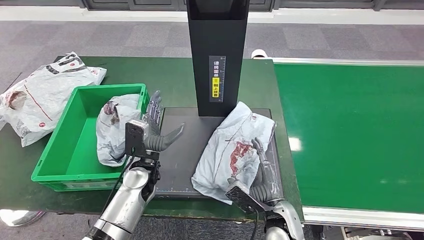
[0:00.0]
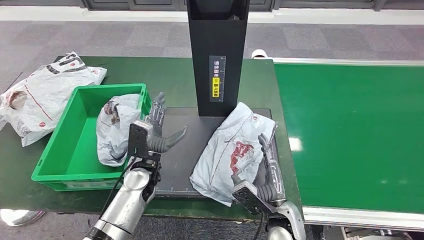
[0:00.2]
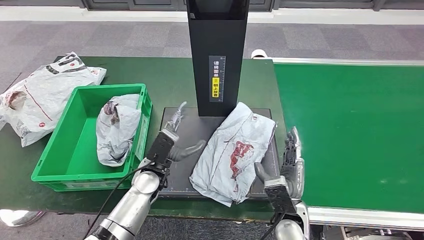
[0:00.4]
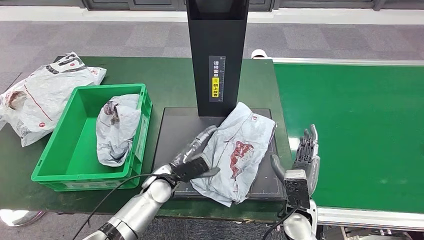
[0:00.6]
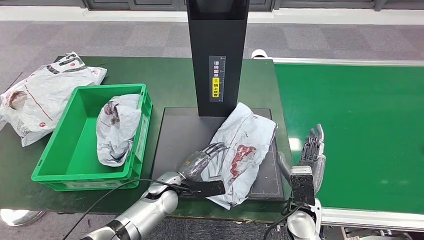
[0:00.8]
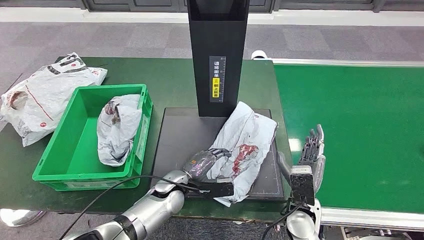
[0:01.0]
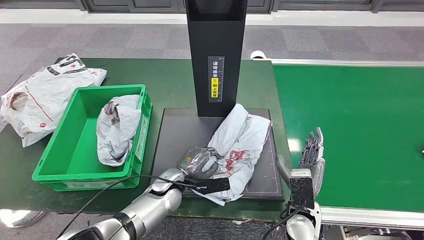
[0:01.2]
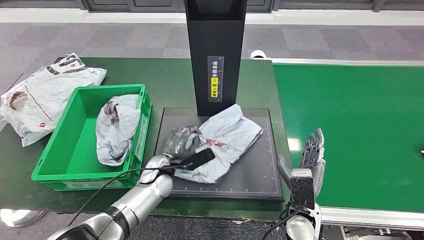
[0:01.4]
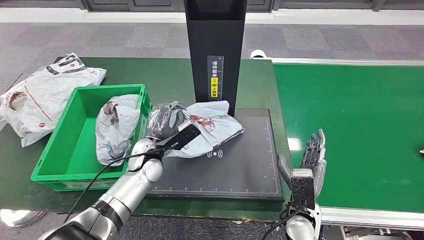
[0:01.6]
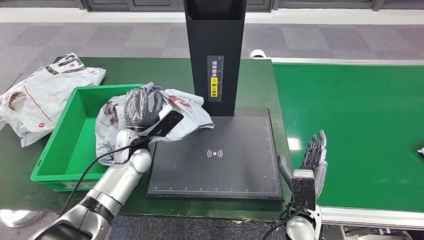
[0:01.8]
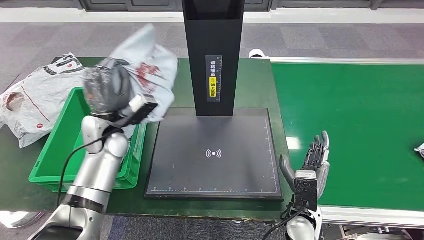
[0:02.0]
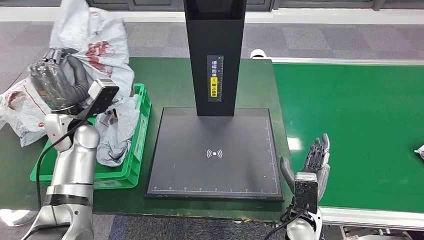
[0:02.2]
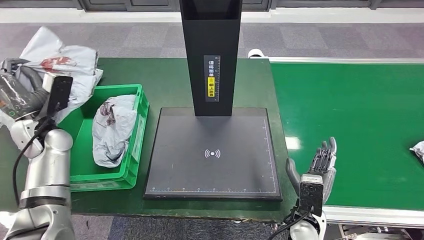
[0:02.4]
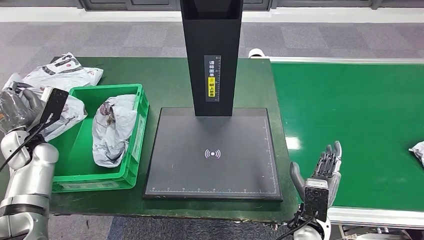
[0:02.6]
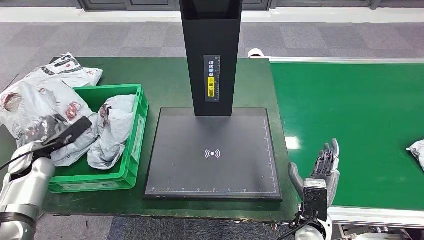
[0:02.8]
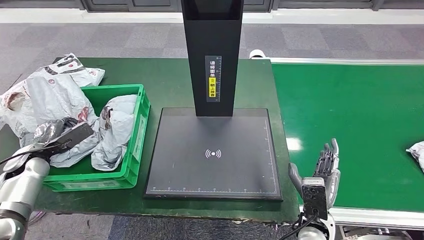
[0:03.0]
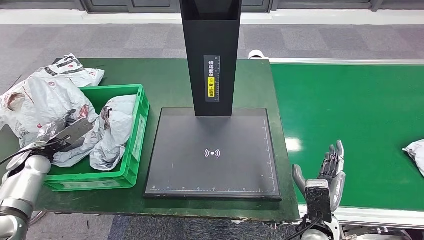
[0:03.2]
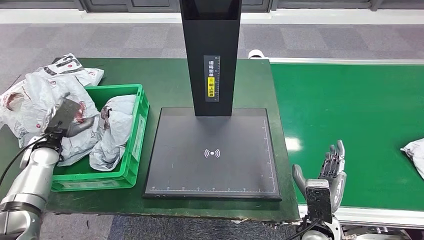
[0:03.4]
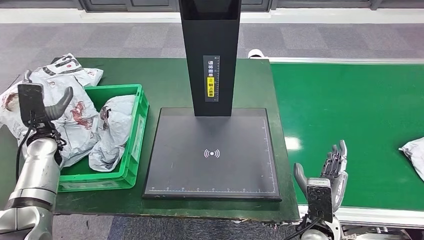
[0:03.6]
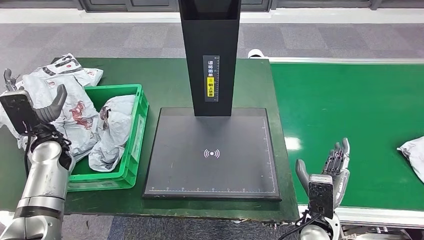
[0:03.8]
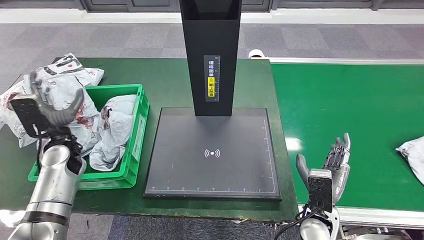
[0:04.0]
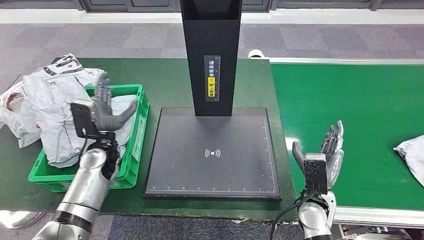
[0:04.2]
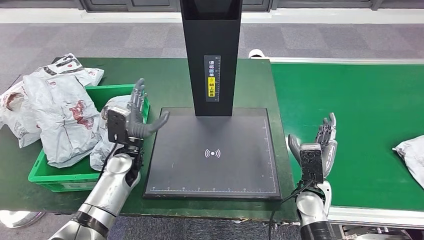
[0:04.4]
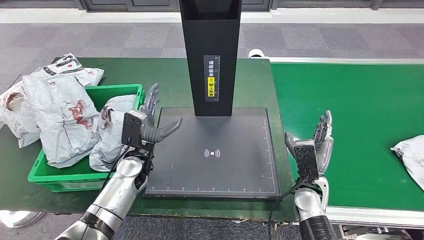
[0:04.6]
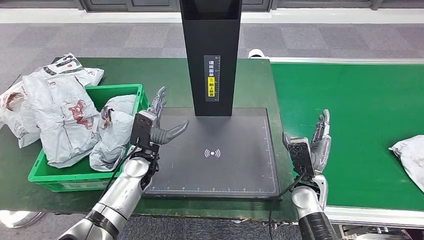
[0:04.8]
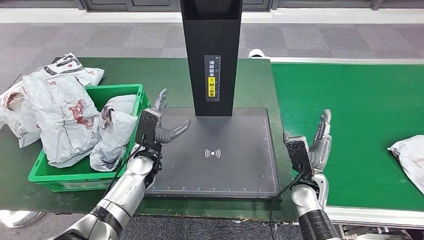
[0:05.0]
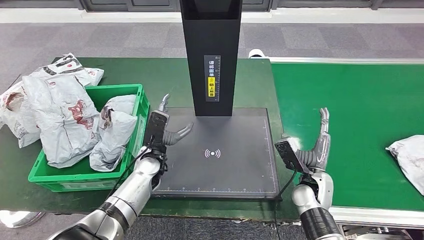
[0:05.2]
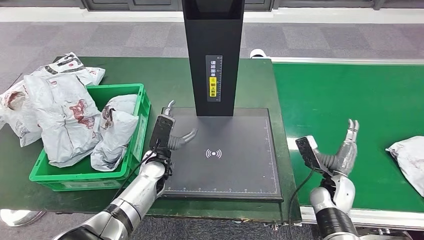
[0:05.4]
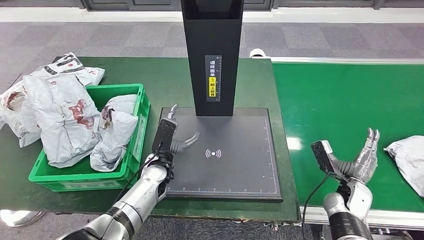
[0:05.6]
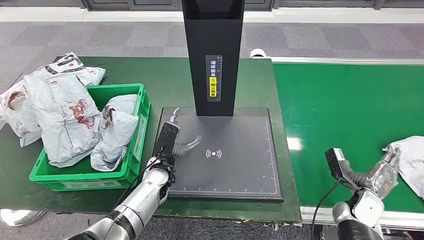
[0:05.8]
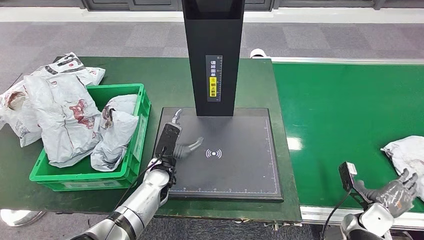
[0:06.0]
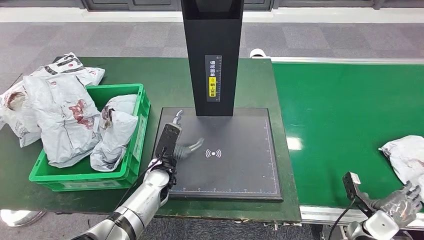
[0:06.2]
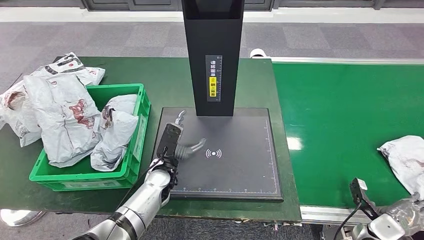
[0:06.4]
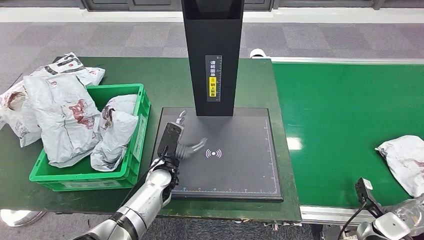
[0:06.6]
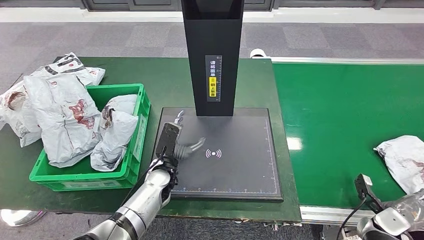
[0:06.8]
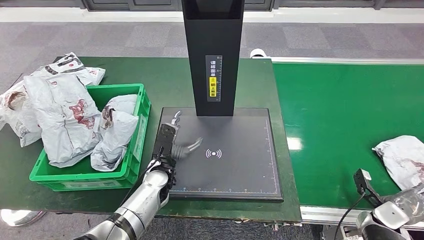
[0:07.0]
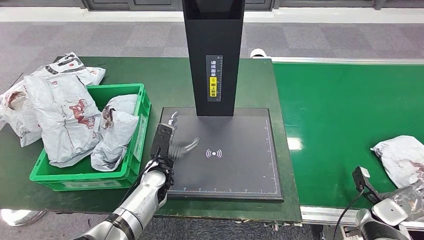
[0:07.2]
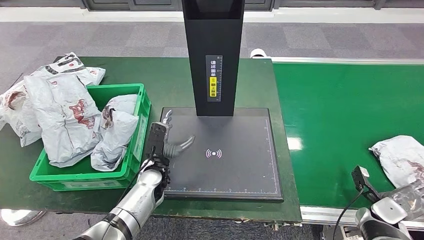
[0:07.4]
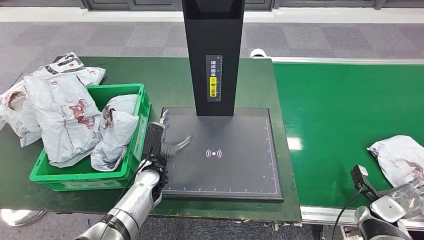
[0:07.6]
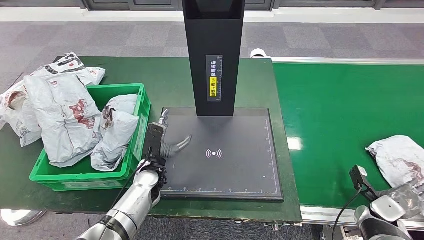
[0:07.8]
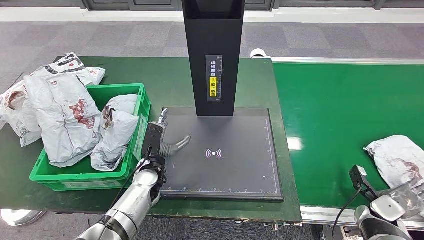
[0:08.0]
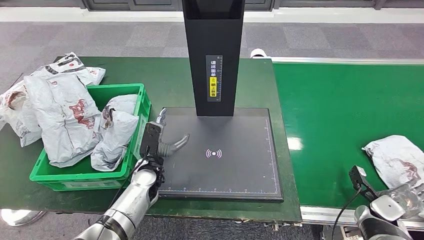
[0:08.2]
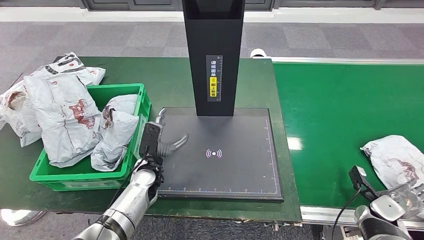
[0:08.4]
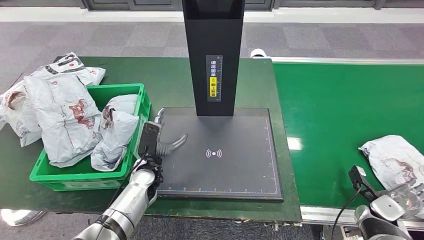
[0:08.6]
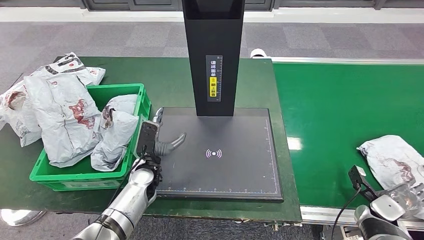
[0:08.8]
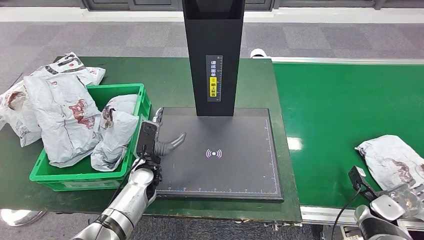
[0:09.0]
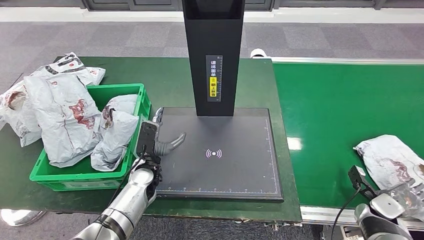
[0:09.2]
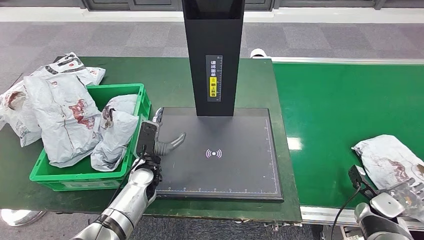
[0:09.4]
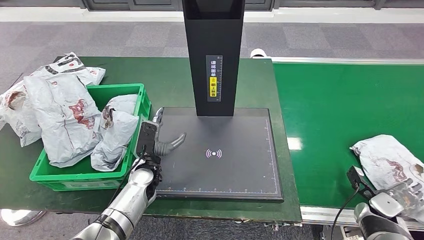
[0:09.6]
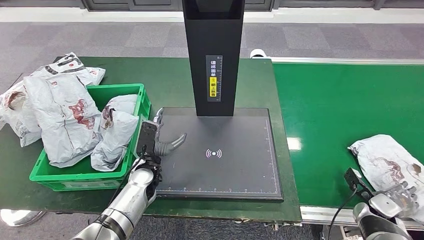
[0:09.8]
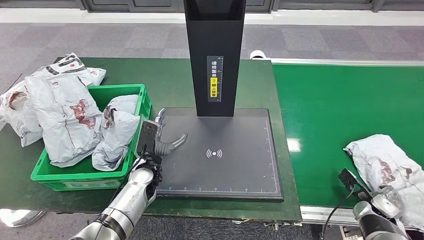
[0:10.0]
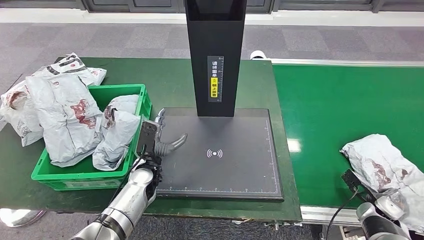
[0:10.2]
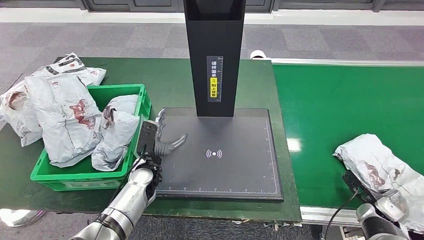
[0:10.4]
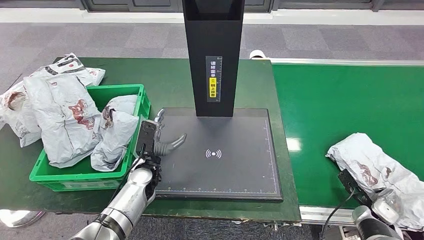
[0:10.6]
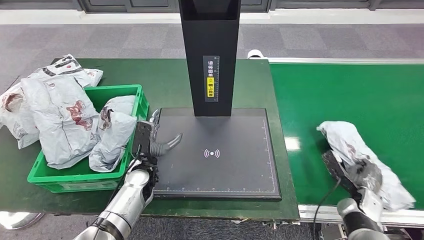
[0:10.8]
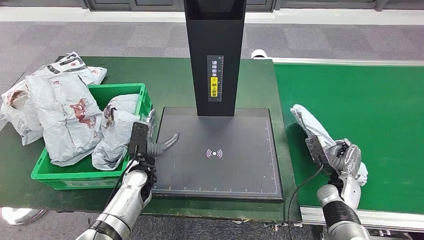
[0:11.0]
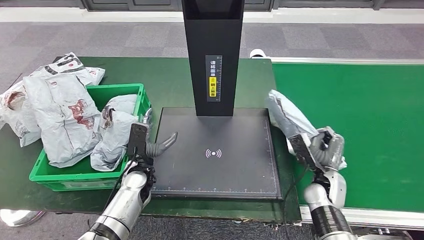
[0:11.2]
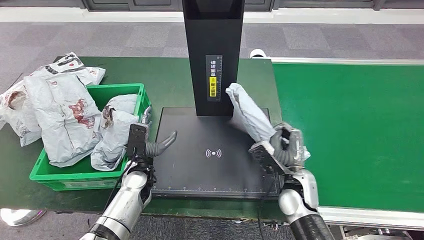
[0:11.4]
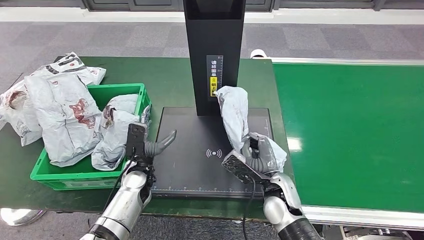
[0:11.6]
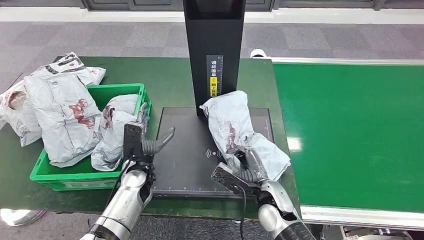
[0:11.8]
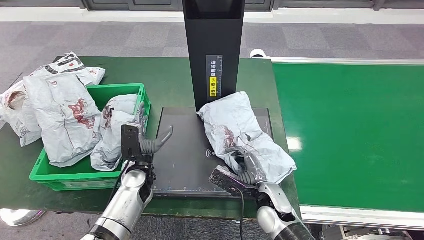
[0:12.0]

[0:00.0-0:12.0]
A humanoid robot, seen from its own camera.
Step, 0:01.0 to 0:01.8: Pick up the parcel from the inbound machine.
Step, 0:02.0 to 0:04.0: Place the parcel into the delivery box.
Step, 0:04.2 to 0:11.2: Pick up the parcel from the conveyor belt.
0:03.0 to 0:04.4: The right hand moves forward, some 10 cm; the left hand moves to the right, some 30 cm.
0:07.6 to 0:09.0: There are only small adjustments of the hands.

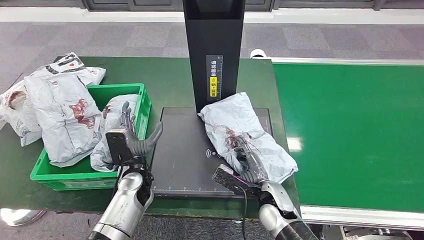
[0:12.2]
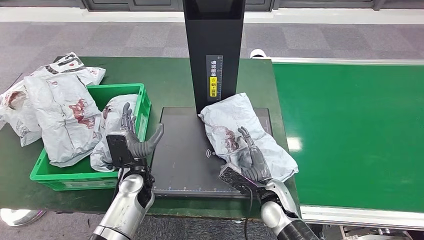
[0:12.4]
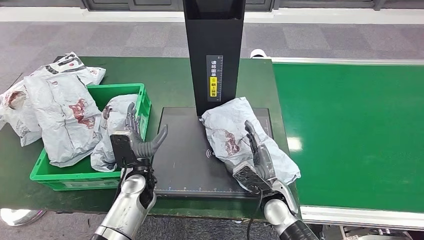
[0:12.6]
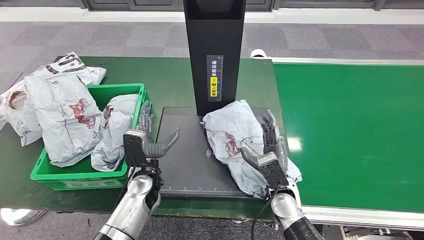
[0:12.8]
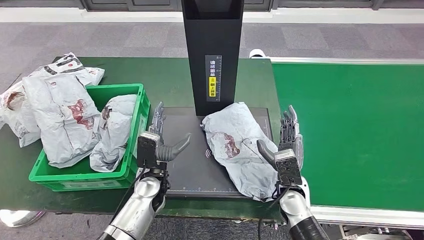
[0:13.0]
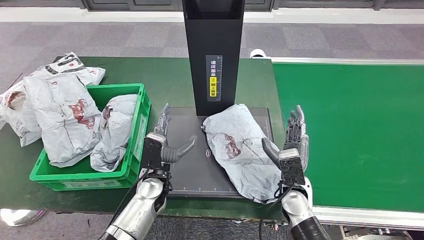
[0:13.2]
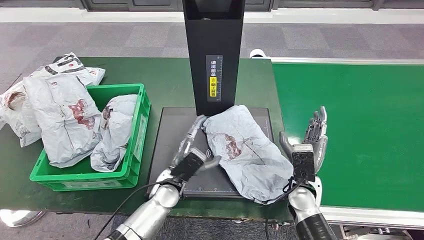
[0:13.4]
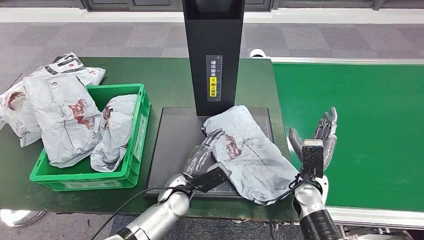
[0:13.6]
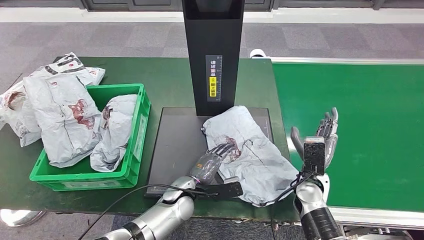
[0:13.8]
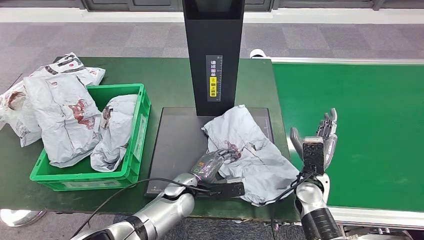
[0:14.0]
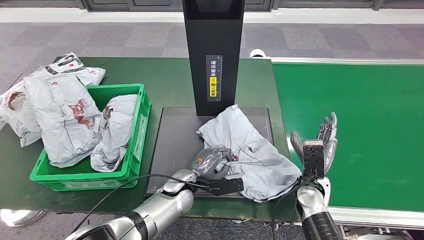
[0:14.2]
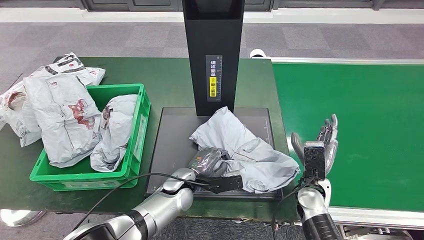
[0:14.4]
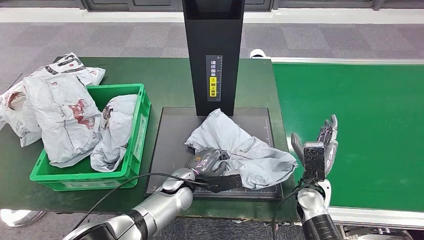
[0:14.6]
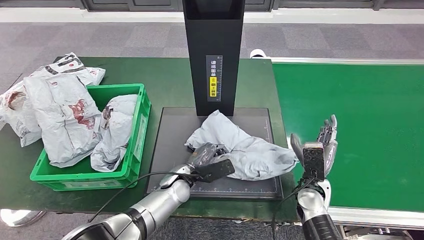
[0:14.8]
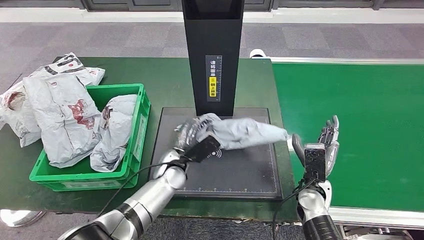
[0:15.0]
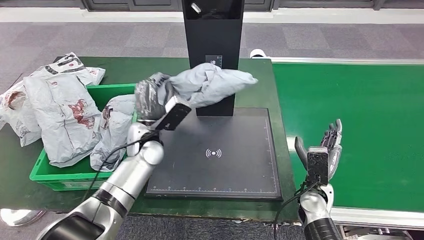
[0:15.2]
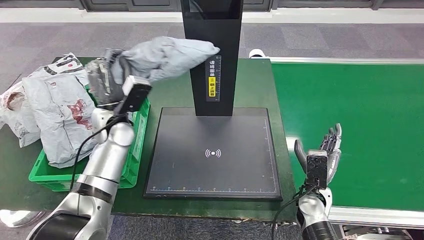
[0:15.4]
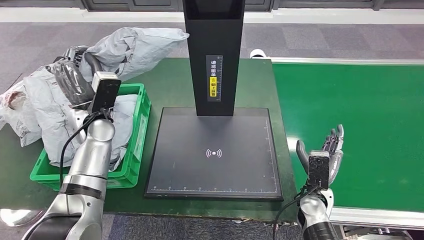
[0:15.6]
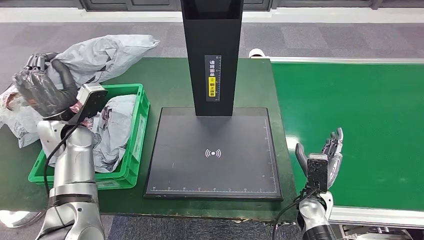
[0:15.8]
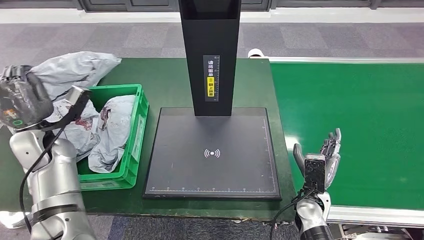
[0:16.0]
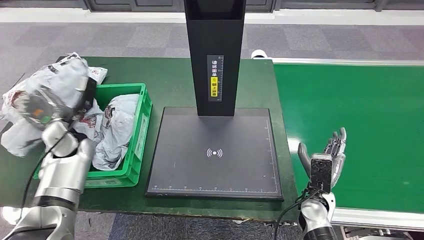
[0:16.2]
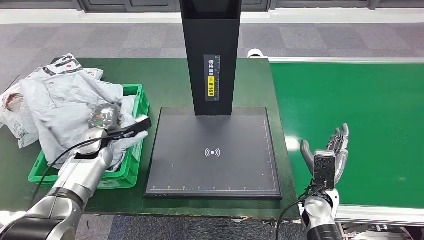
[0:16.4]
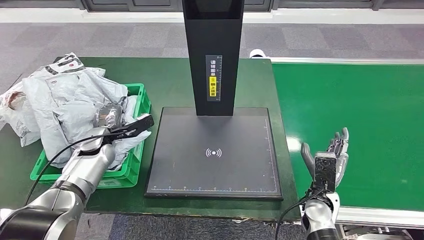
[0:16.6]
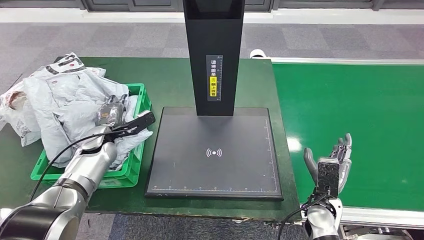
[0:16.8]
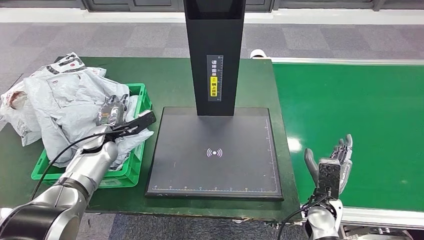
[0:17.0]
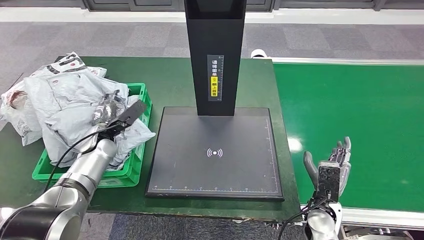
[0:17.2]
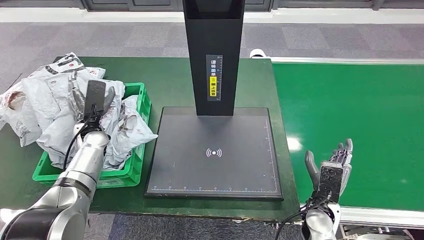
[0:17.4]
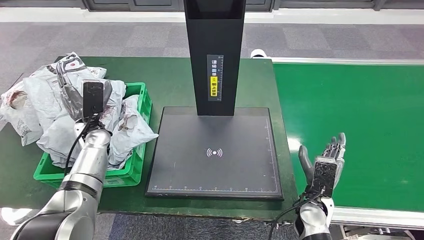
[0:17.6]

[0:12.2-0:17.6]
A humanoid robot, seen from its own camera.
Step, 0:13.2 to 0:15.2: Pick up the parcel from the inbound machine.
Step, 0:15.4 to 0:17.6: Place the parcel into the delivery box.
0:12.2 to 0:13.6: The hands both shift to the right by approximately 10 cm.
0:13.6 to 0:15.0: The left hand heads forward, covering approximately 5 cm.
0:16.2 to 0:17.6: The left hand changes place by roughly 5 cm.
